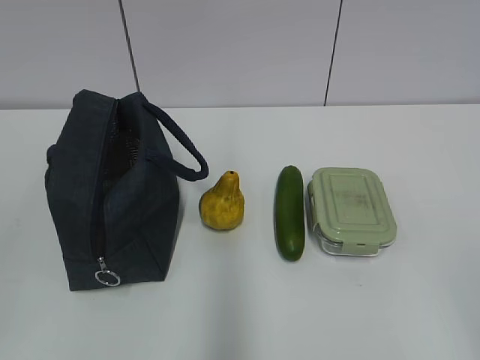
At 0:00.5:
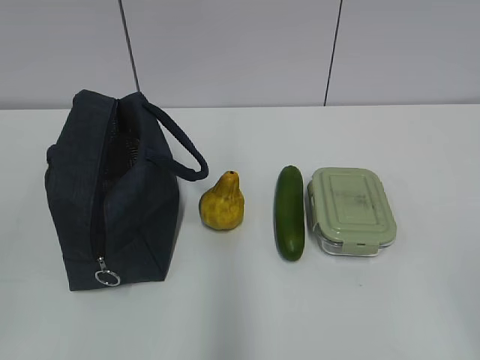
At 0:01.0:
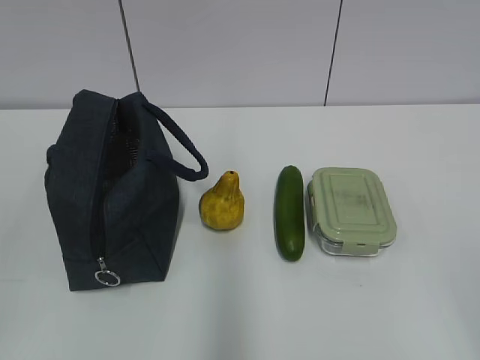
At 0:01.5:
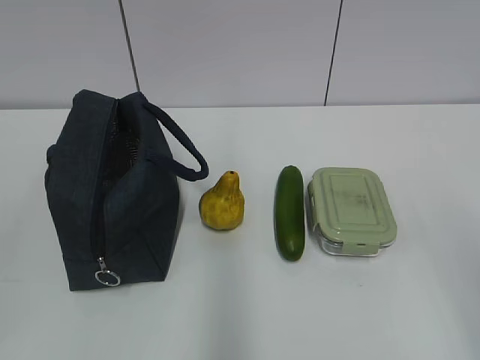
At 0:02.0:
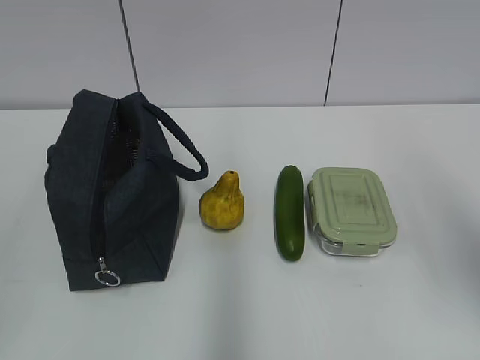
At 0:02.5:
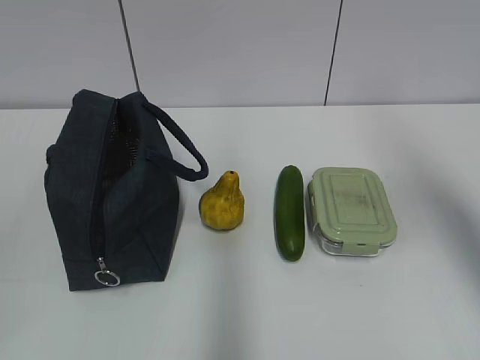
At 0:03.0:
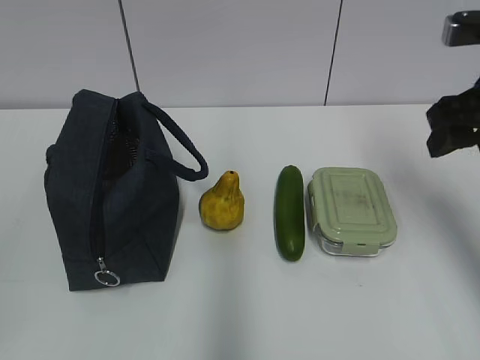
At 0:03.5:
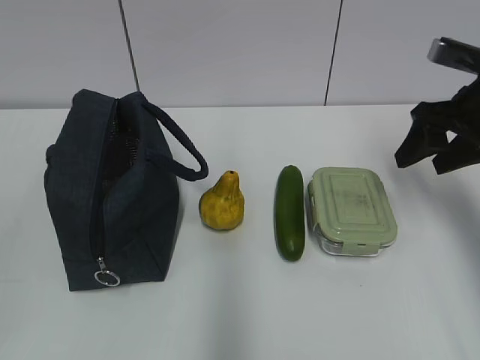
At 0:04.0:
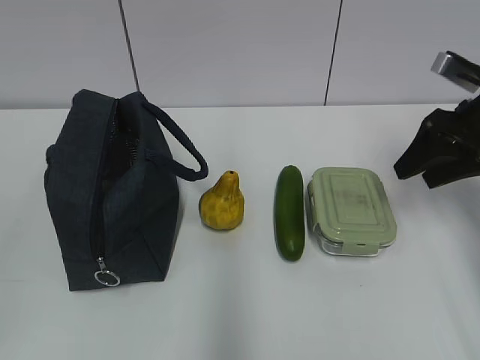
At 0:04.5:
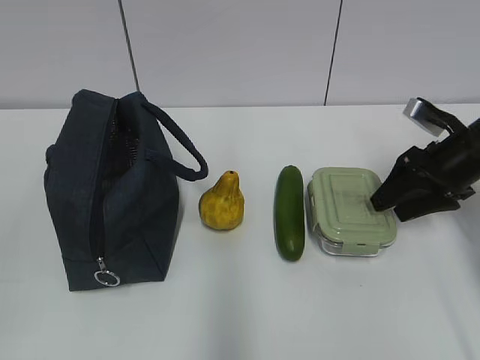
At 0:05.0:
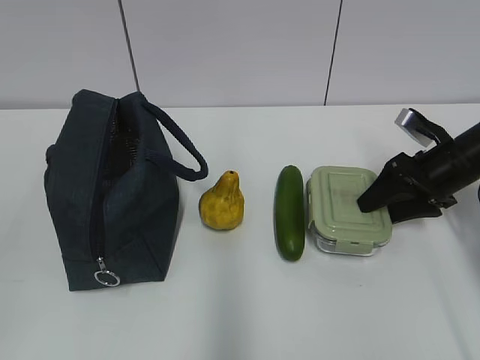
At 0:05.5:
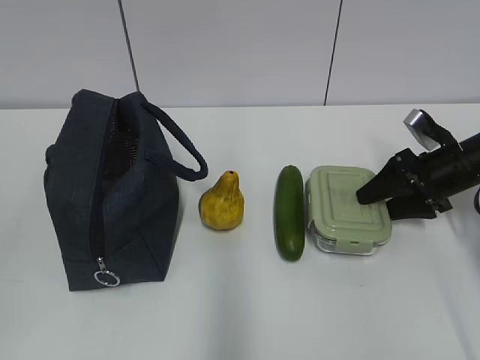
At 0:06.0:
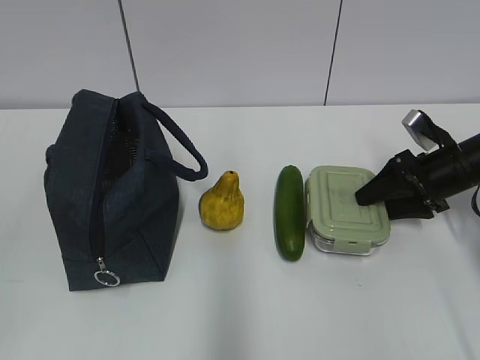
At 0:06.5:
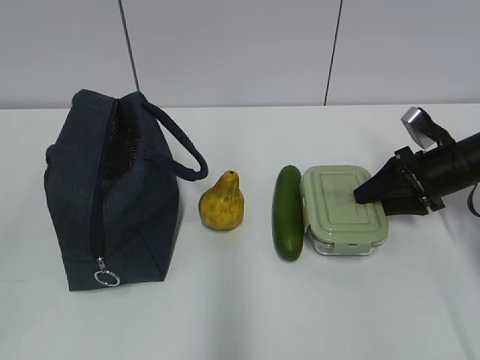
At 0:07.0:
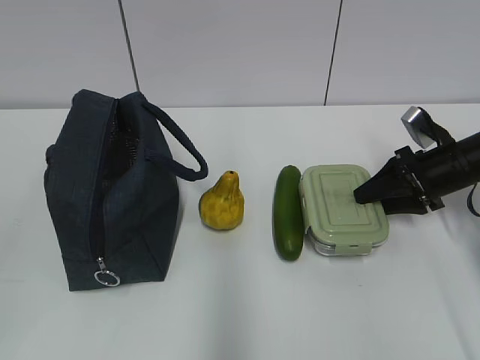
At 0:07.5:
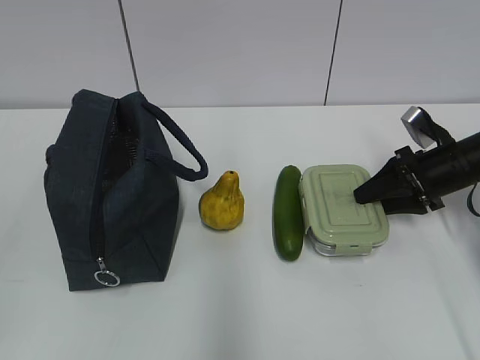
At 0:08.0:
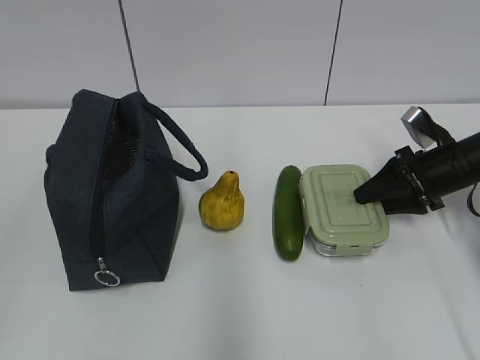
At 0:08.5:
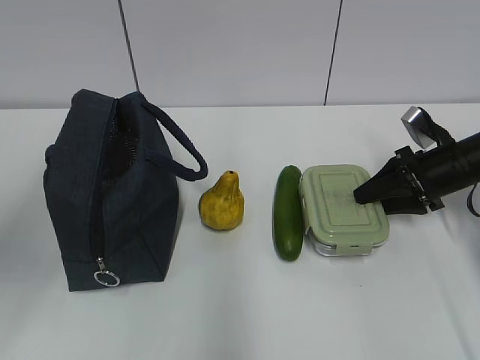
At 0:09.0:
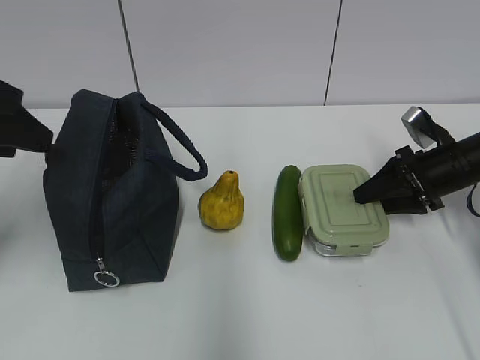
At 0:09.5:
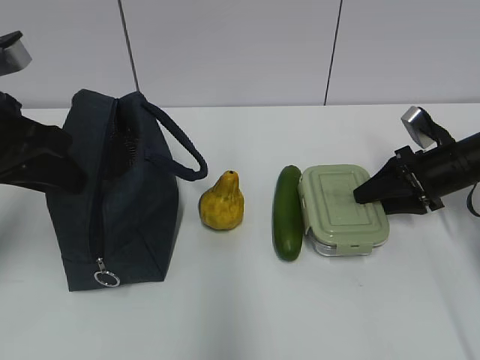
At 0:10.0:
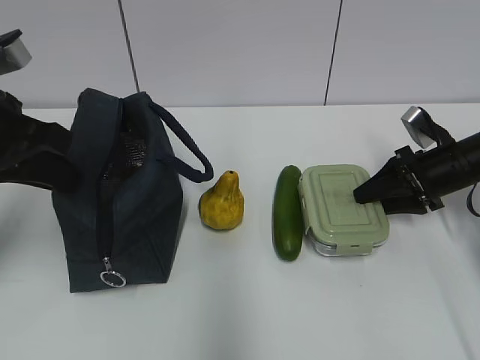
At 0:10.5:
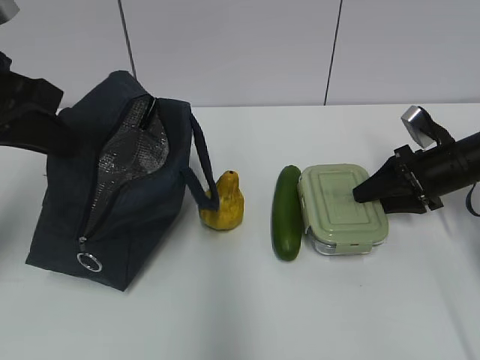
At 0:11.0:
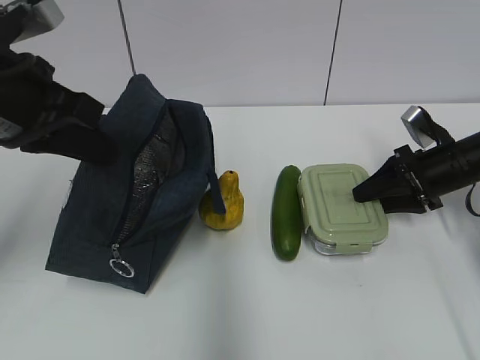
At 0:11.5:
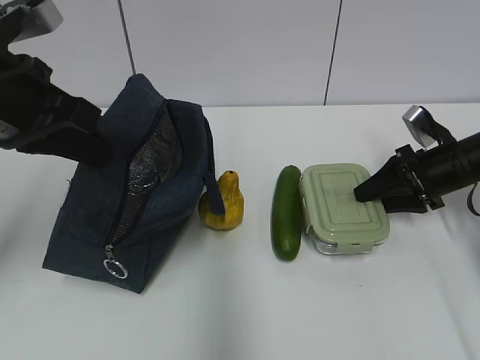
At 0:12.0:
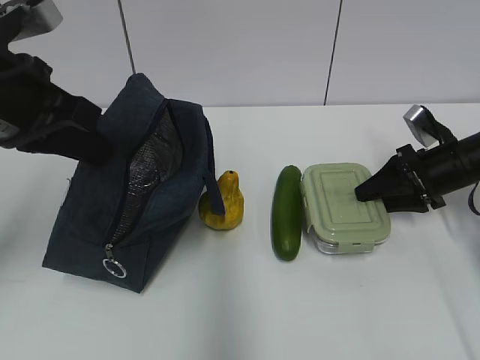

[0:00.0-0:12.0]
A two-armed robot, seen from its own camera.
0:02.0 to 0:04.0: The right gripper is displaced forward and downward by about 25 cm.
0:04.0 to 0:06.0: The right gripper shifts roughly 10 cm downward.
0:06.0 to 0:08.0: The two grippers keep their place.
0:08.0 to 0:10.0: The left gripper shifts some 25 cm forward, and closes up.
0:10.0 to 0:12.0: The grippers make only small movements.

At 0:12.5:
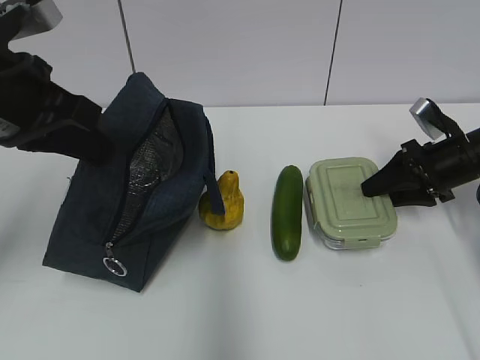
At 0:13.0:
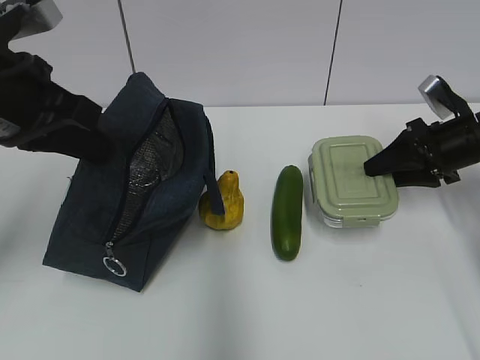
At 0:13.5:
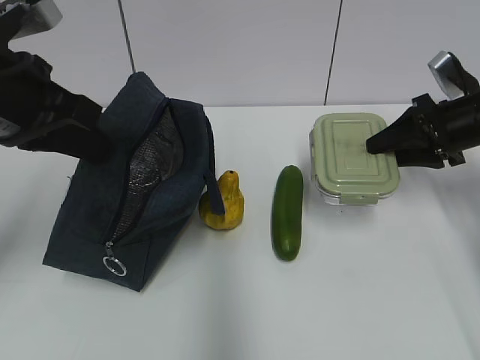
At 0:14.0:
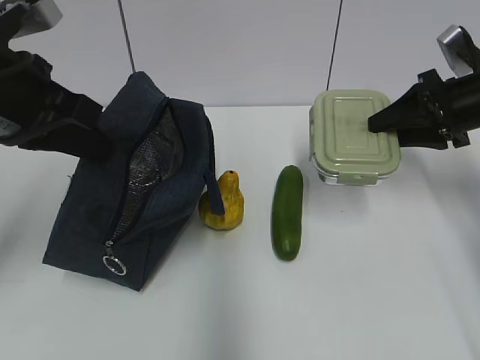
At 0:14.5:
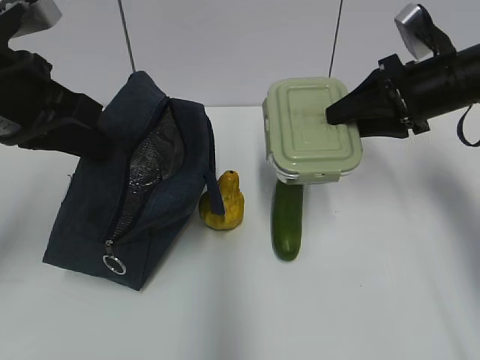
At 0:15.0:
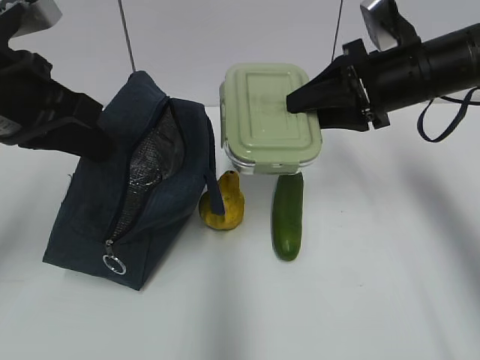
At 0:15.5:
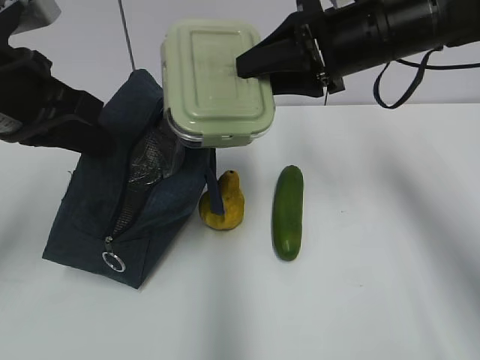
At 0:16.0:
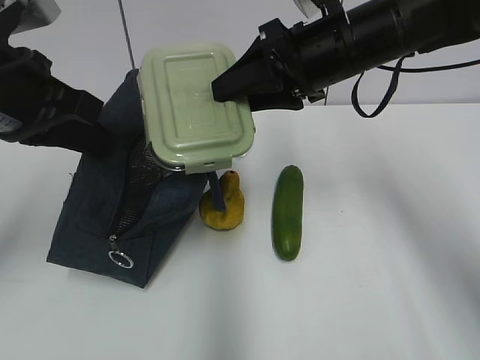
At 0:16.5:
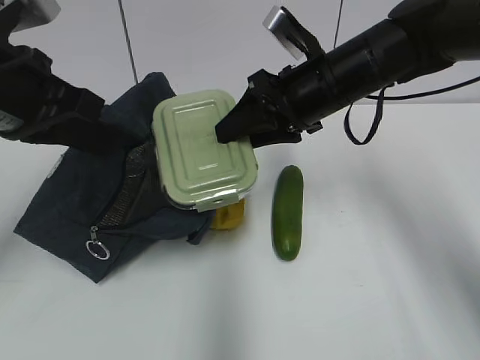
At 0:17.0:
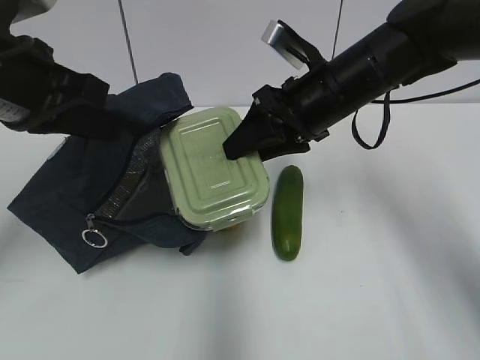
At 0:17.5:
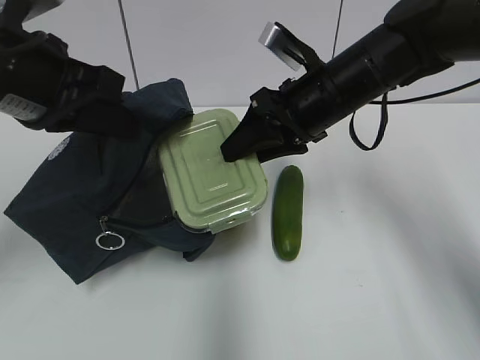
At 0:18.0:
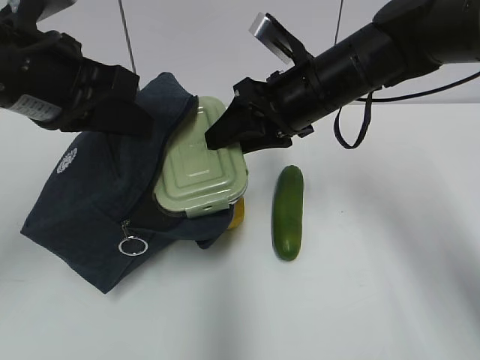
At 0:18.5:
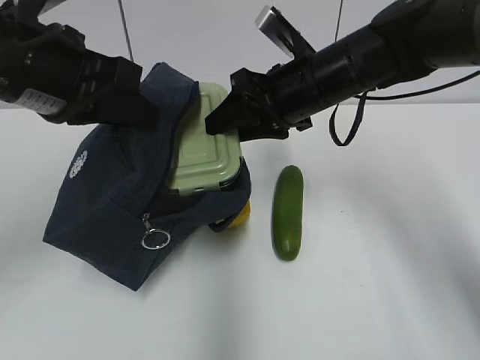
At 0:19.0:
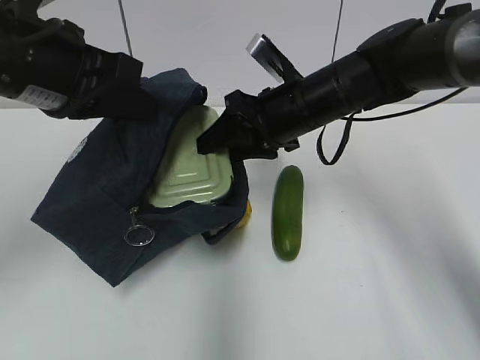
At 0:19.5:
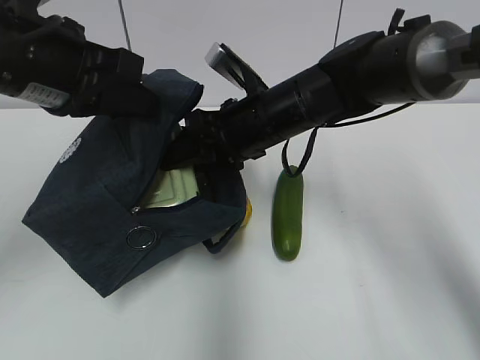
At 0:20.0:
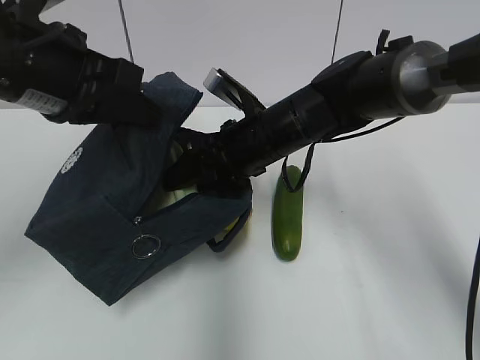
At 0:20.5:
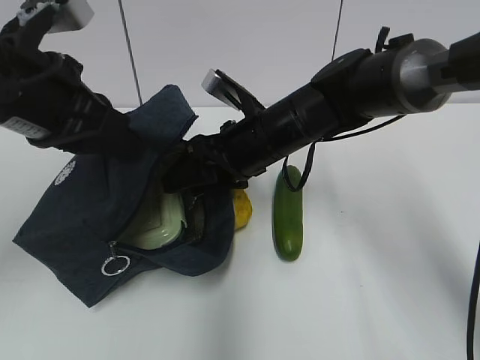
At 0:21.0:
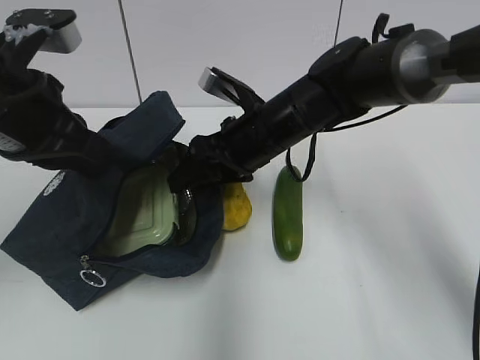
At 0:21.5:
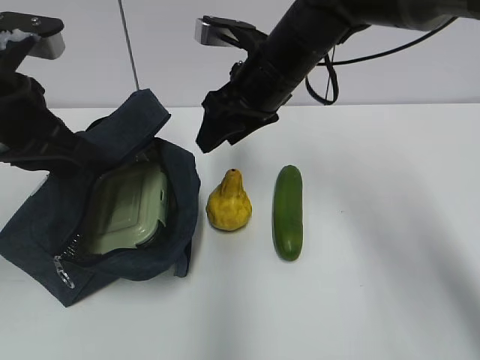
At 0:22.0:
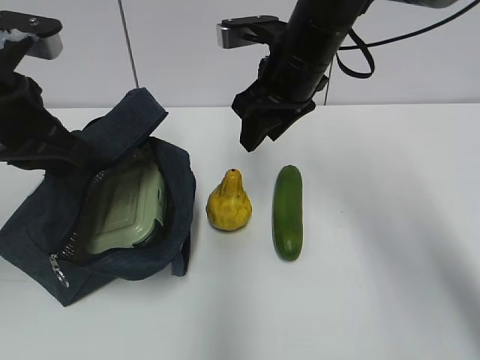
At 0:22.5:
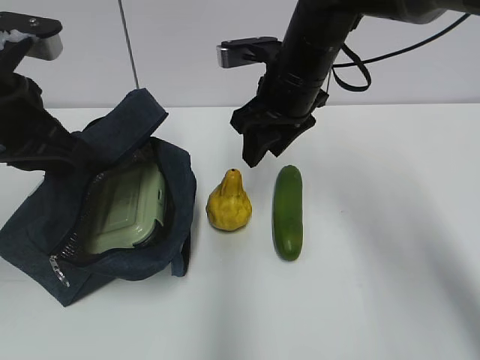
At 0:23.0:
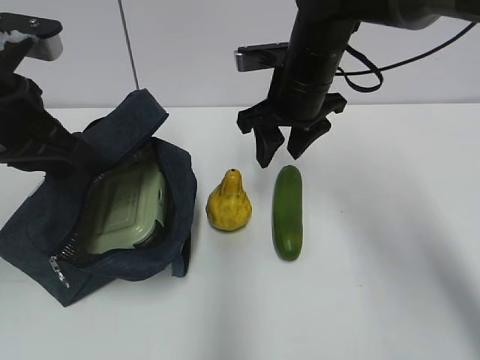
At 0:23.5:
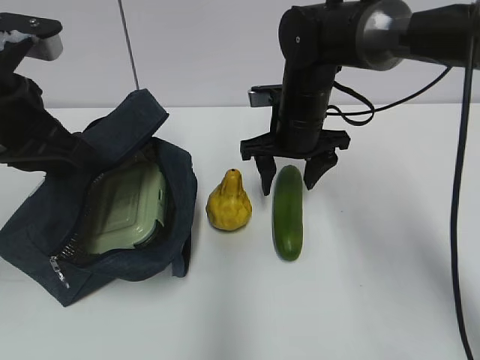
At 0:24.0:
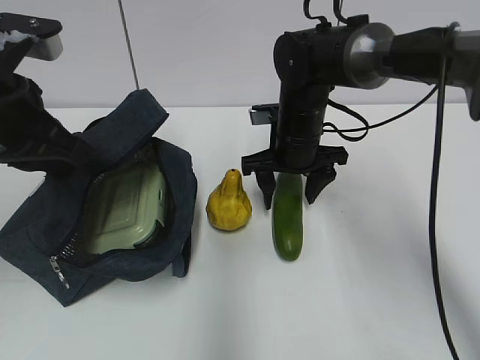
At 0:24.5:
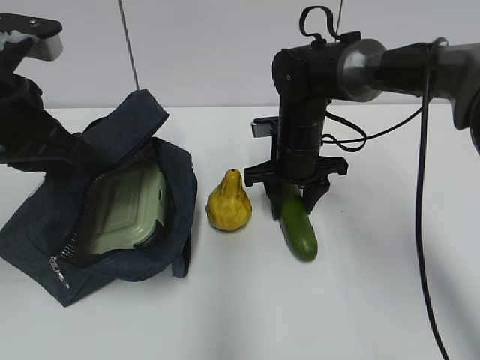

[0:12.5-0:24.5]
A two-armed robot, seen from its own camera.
0:12.5 to 0:14.5: The right gripper travels upward and to the left by roughly 15 cm.
0:14.5 to 0:16.5: The right gripper travels to the left by approximately 15 cm.
0:16.5 to 0:18.5: The grippers stay close to where they were, moving slightly.
0:18.5 to 0:20.5: The right gripper moves downward and to the left, about 10 cm.
0:20.5 to 0:22.5: The right gripper goes roughly 5 cm upward.
0:22.5 to 0:24.5: The right gripper travels downward by some 10 cm.

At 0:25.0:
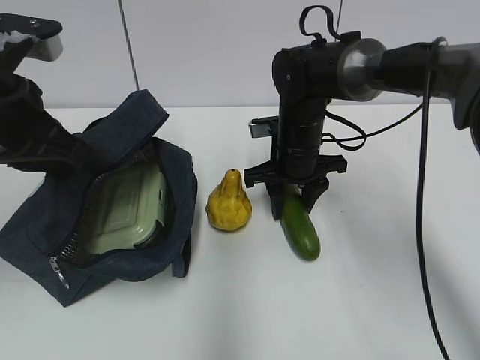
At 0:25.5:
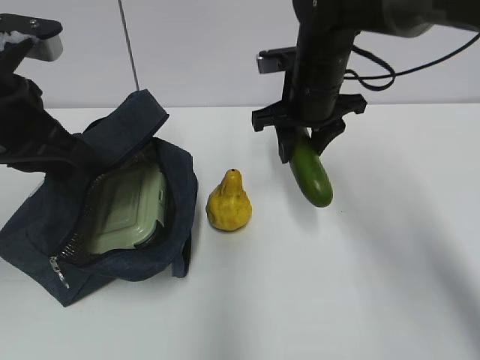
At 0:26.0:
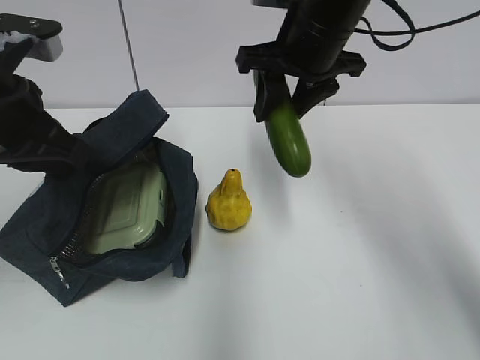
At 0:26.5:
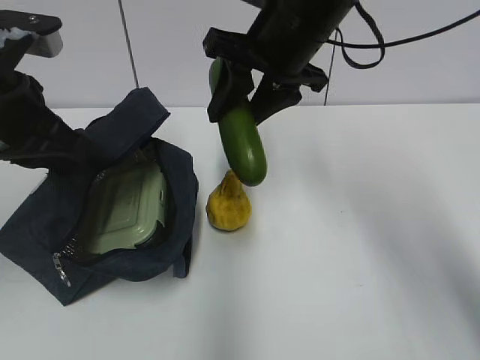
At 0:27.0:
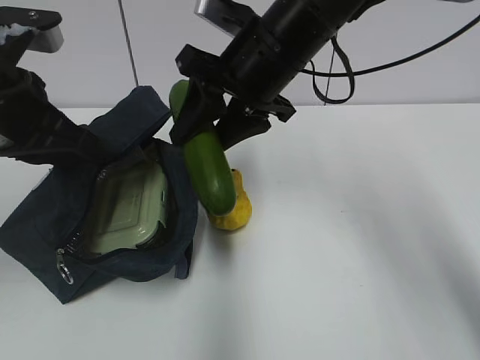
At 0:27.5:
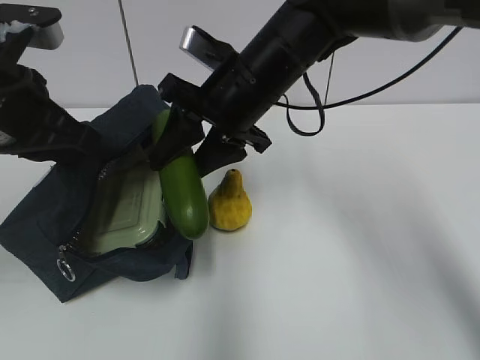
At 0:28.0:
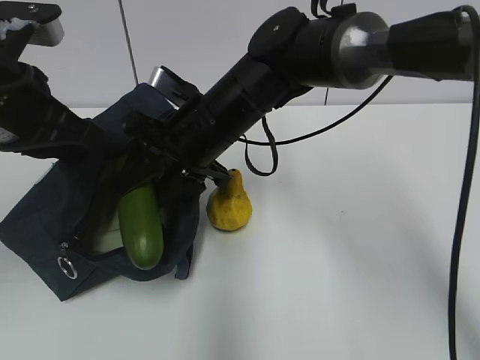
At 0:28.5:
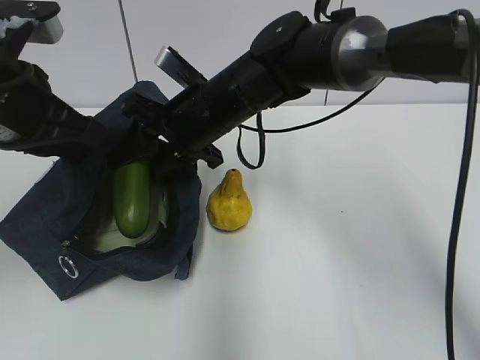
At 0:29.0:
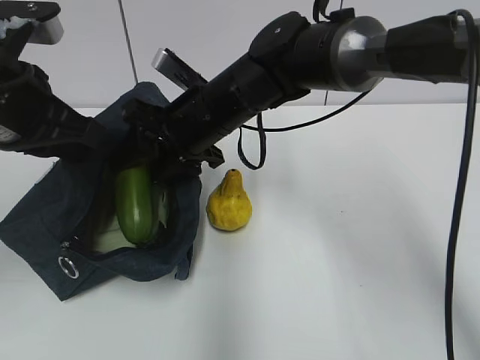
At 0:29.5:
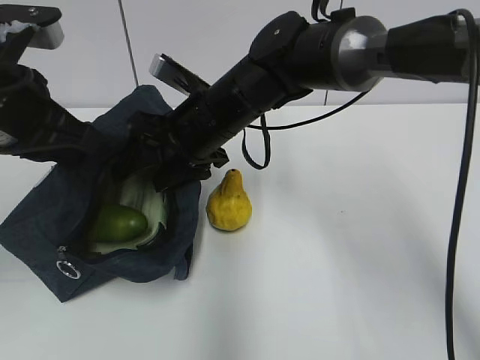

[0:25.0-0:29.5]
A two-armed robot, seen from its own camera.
0:25.0 to 0:27.0: The right gripper is displaced upward and backward by roughly 15 cm.
0:27.0 to 0:29.5: The right gripper moves downward and to the left, approximately 10 cm.
